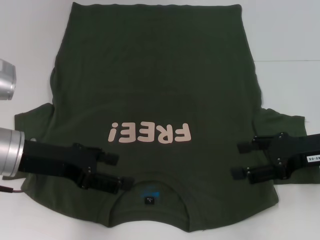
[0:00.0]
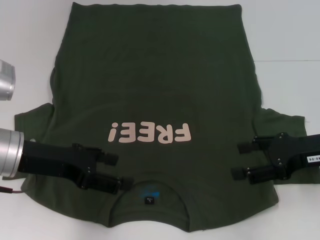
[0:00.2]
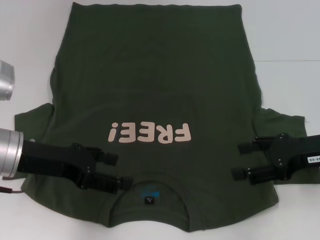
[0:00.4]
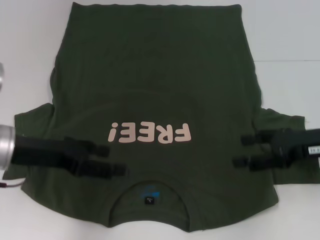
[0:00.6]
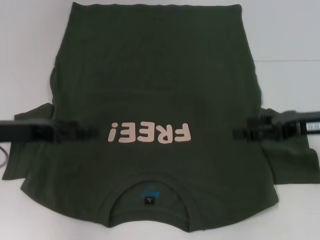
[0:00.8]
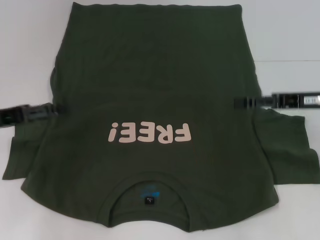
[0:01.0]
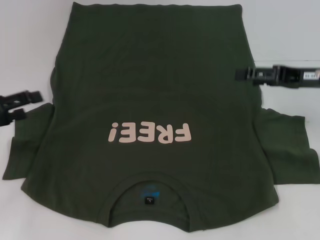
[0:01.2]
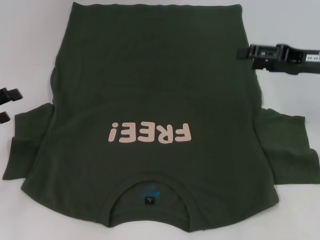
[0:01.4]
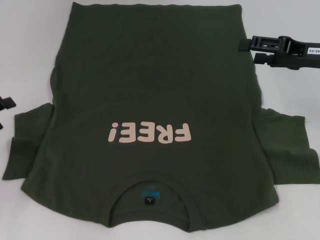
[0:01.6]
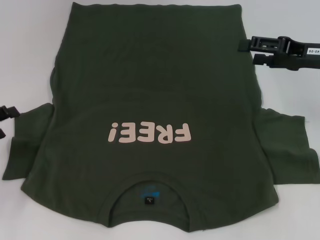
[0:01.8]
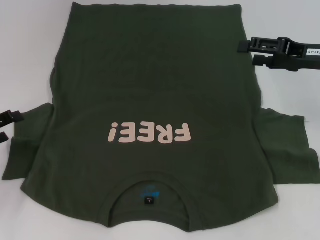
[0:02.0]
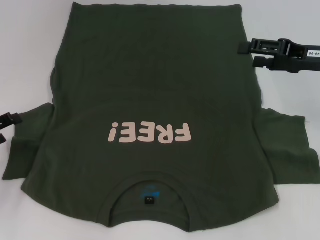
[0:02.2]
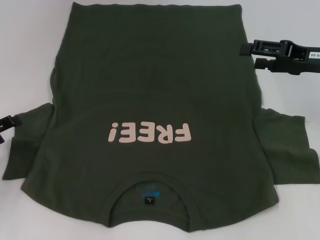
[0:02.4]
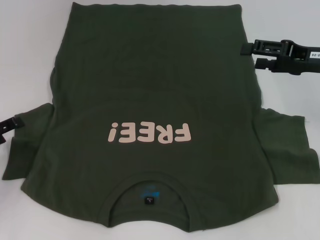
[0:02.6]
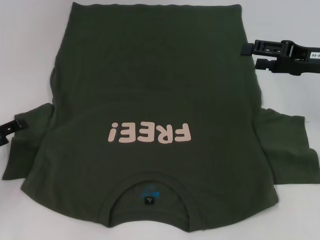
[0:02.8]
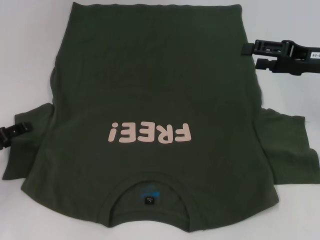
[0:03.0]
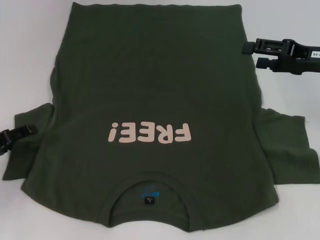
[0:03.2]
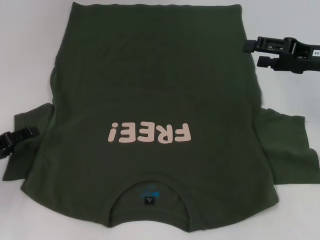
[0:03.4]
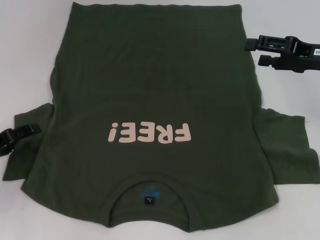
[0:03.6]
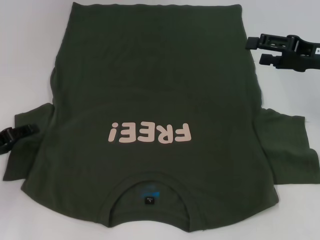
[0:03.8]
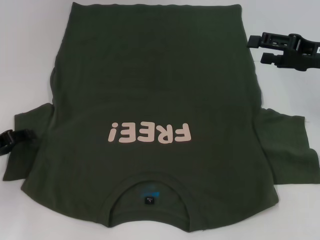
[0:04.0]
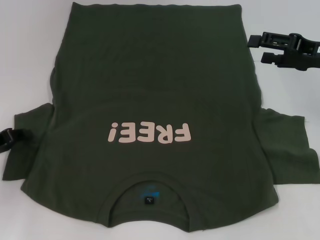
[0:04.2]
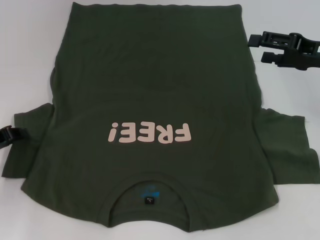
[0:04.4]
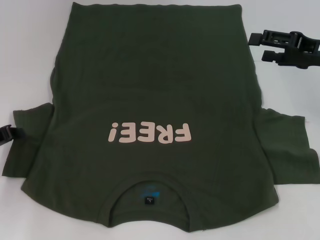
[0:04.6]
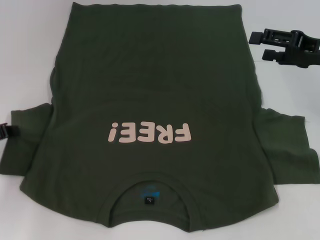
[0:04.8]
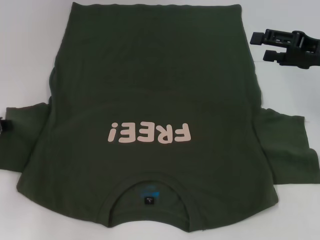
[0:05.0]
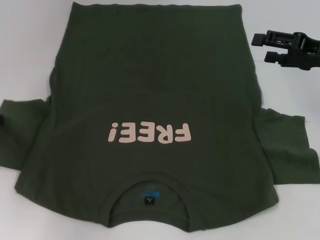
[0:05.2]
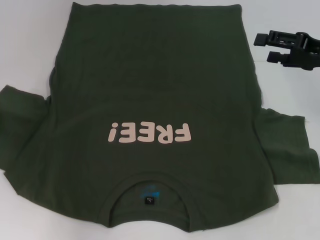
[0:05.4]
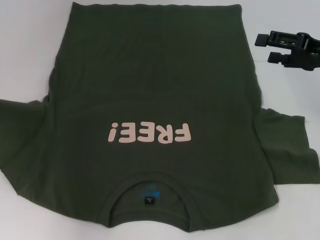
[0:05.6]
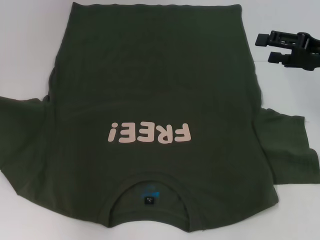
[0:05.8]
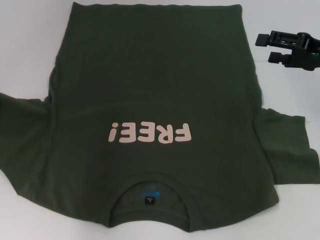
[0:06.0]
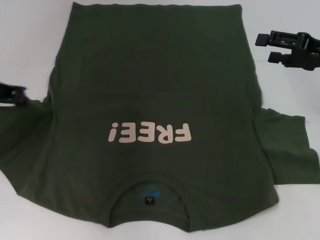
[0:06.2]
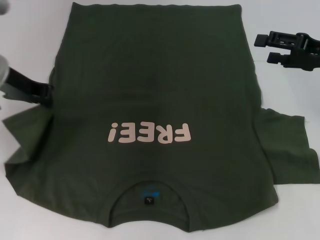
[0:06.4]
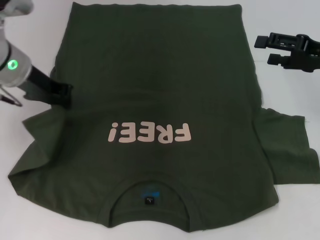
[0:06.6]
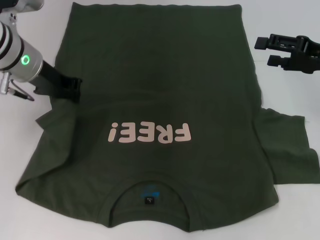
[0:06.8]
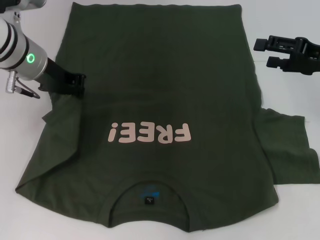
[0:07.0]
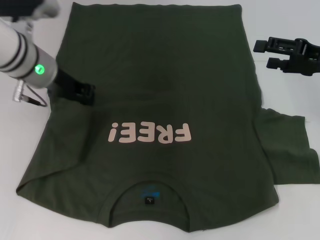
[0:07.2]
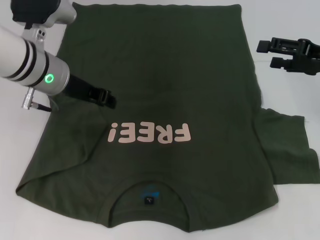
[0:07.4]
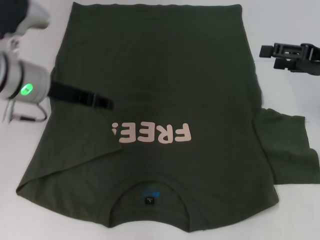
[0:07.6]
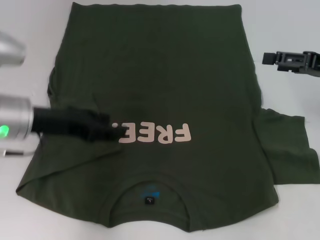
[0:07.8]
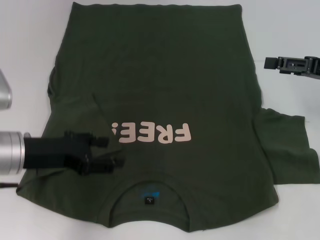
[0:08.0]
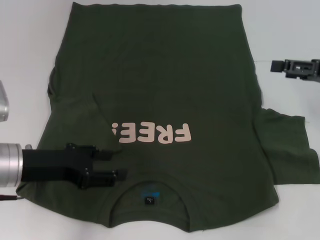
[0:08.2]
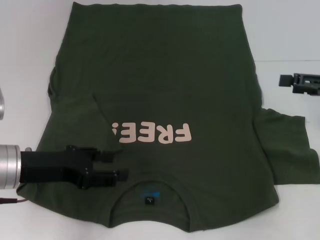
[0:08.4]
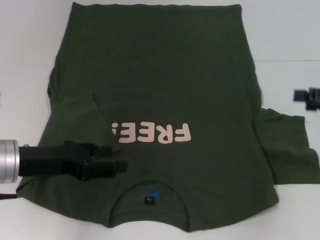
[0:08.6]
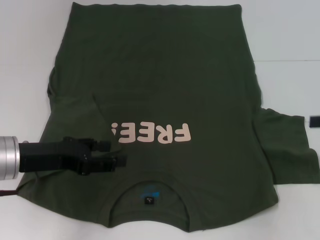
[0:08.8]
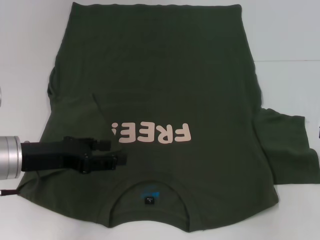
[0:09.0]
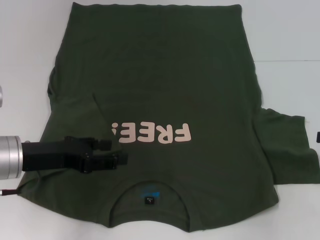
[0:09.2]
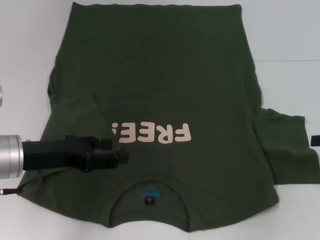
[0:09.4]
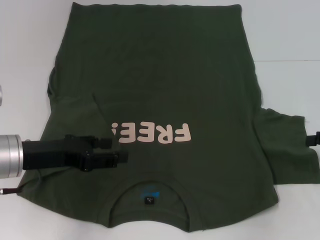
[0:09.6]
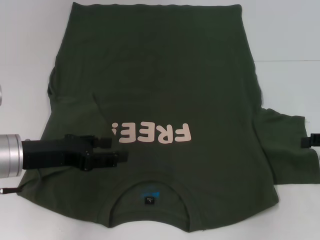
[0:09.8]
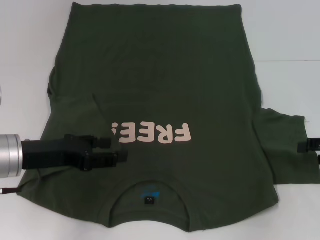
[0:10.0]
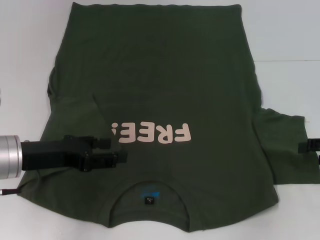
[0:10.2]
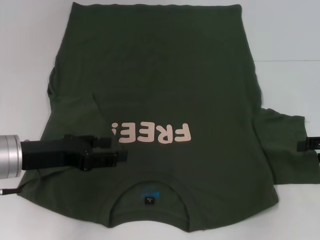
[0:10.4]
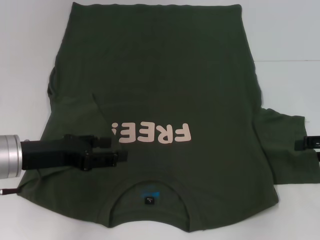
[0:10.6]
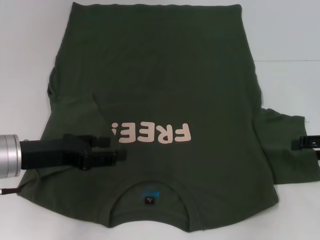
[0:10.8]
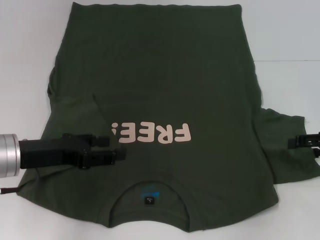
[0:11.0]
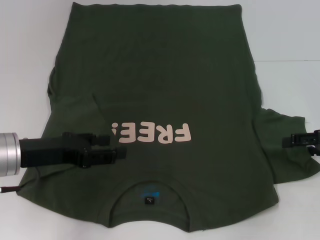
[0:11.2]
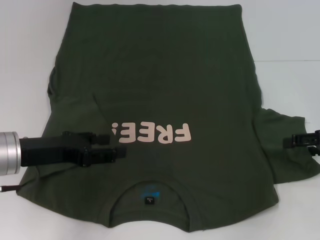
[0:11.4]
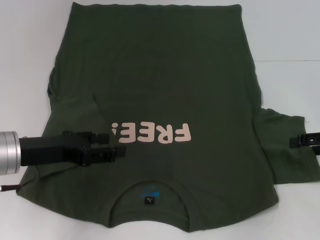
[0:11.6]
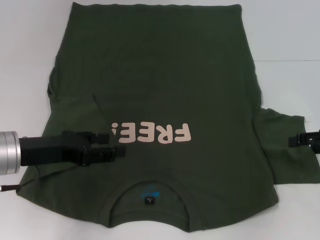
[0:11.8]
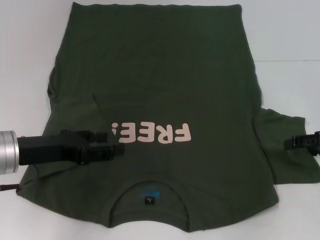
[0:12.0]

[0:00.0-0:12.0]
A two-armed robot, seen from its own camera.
Step, 0:00.0 to 0:07.4: Fold the bottom left sleeve with your left hand.
0:00.0 to 0:01.6: The left gripper travels to the left by about 15 cm, while the right gripper shifts about 10 cm forward.
0:01.6 to 0:03.0: The left gripper shifts by about 5 cm.
0:04.4 to 0:06.0: The left gripper goes some 10 cm upward and forward, and closes up.
0:06.0 to 0:07.6: The left gripper heads to the right, covering some 15 cm.
0:07.6 to 0:09.0: The right gripper shifts approximately 10 cm to the right and backward. Meanwhile the left gripper is displaced backward and downward by some 10 cm, and opens.
0:10.4 to 0:12.0: The grippers move only a little.

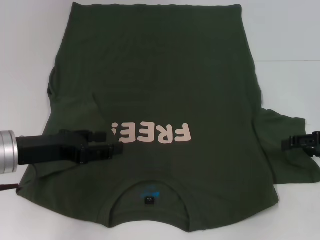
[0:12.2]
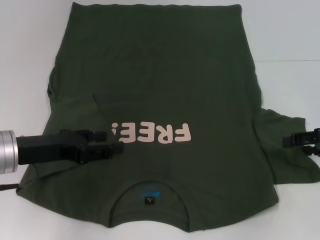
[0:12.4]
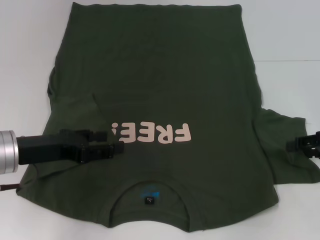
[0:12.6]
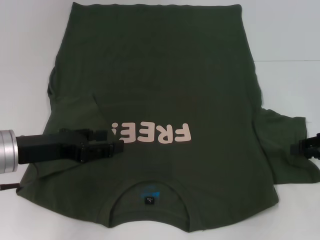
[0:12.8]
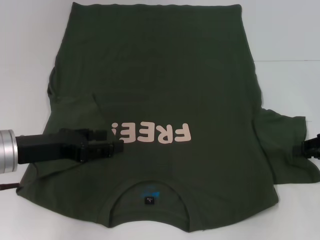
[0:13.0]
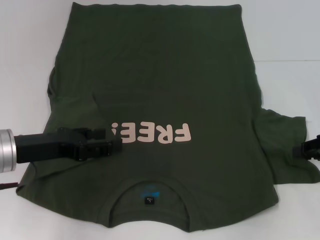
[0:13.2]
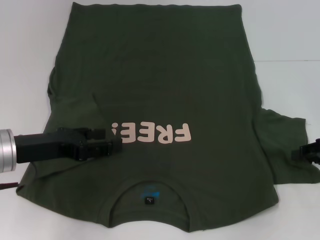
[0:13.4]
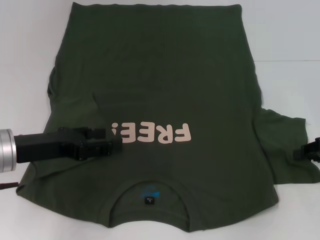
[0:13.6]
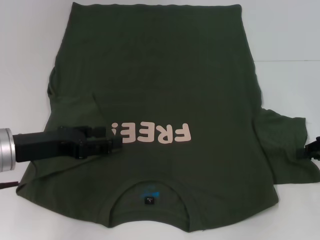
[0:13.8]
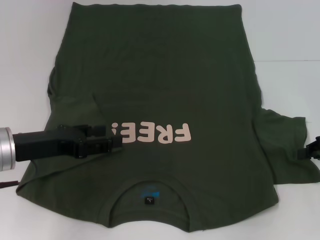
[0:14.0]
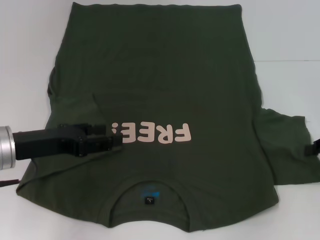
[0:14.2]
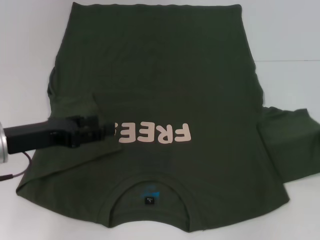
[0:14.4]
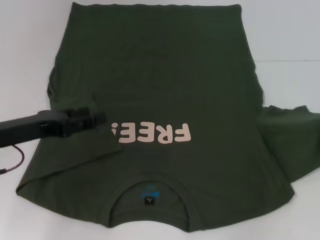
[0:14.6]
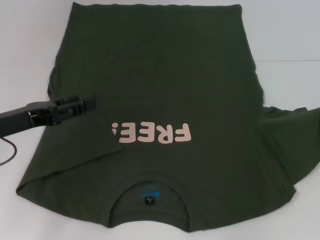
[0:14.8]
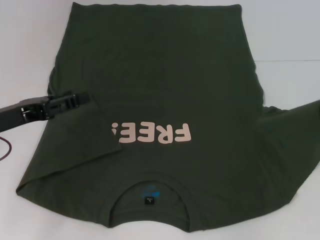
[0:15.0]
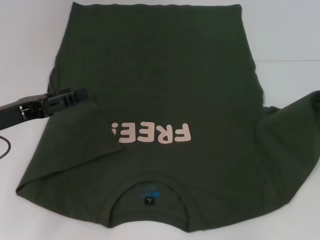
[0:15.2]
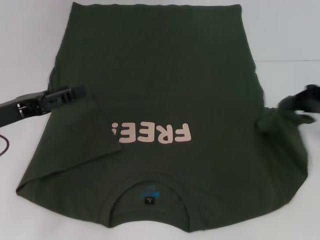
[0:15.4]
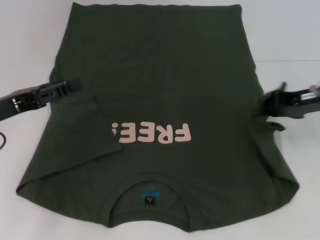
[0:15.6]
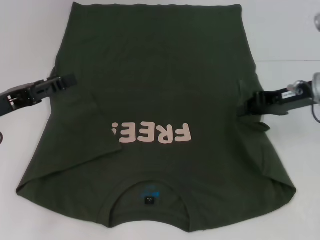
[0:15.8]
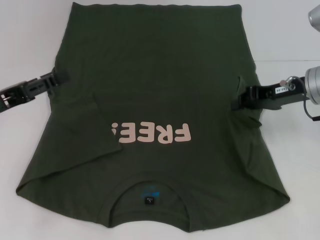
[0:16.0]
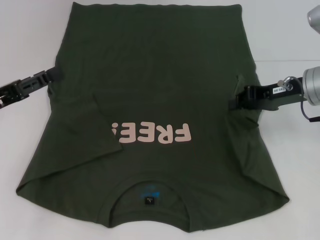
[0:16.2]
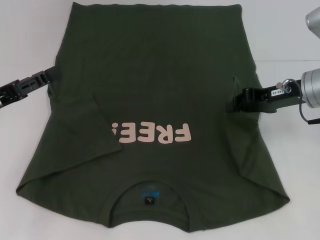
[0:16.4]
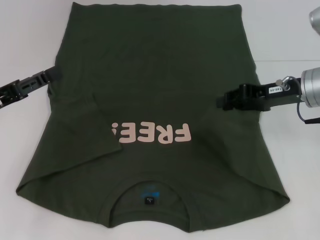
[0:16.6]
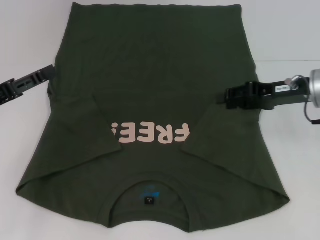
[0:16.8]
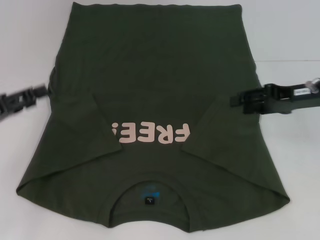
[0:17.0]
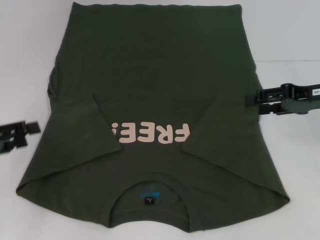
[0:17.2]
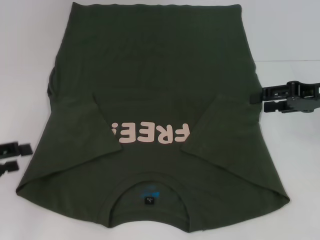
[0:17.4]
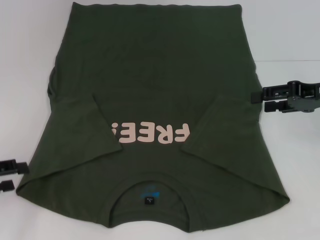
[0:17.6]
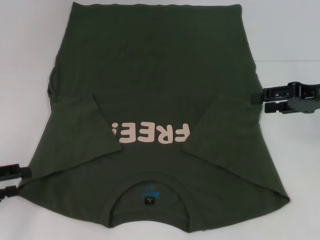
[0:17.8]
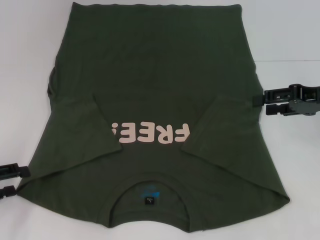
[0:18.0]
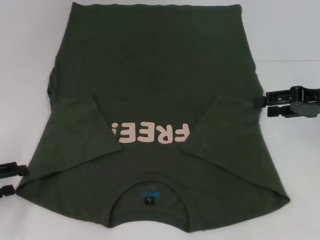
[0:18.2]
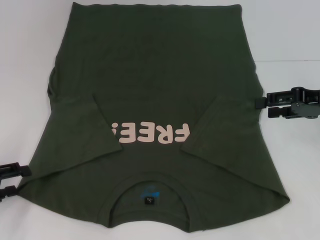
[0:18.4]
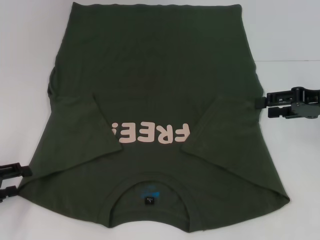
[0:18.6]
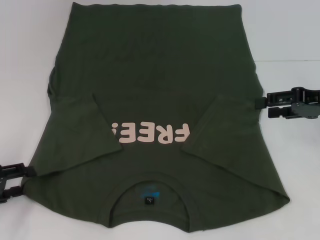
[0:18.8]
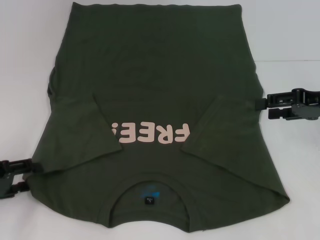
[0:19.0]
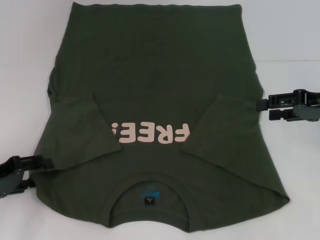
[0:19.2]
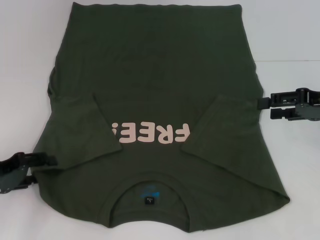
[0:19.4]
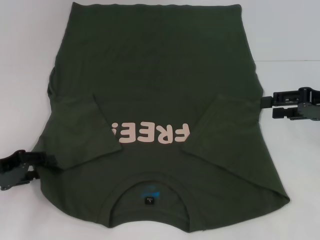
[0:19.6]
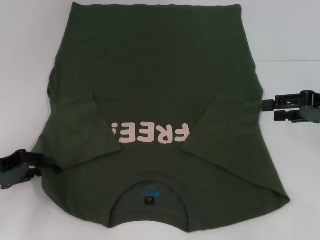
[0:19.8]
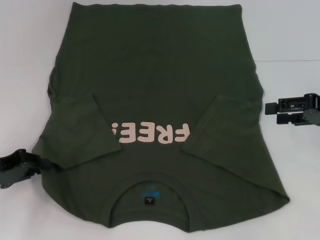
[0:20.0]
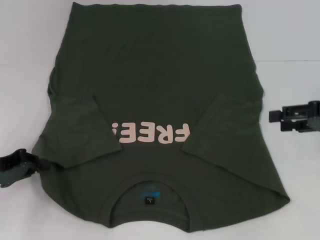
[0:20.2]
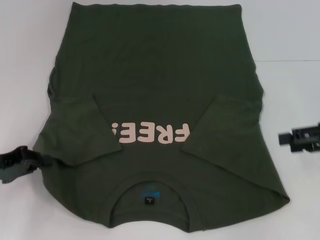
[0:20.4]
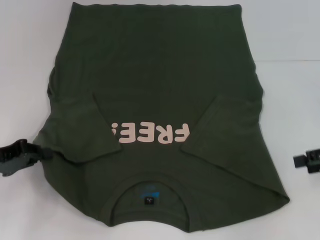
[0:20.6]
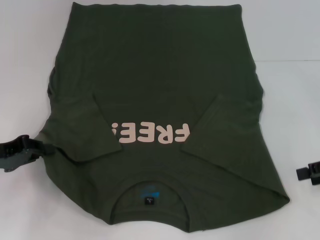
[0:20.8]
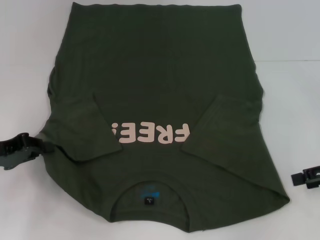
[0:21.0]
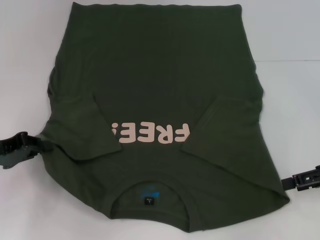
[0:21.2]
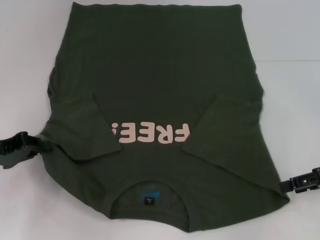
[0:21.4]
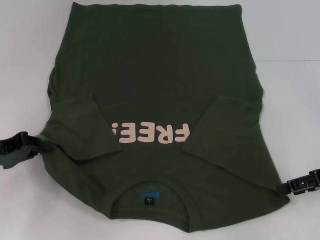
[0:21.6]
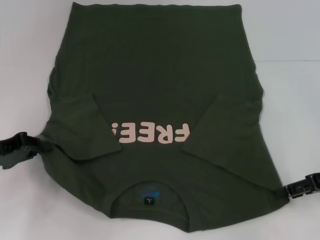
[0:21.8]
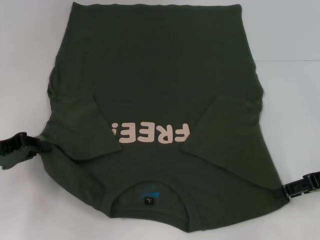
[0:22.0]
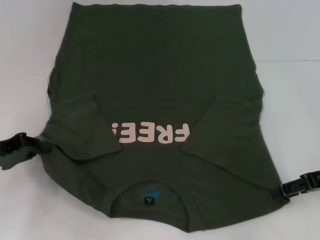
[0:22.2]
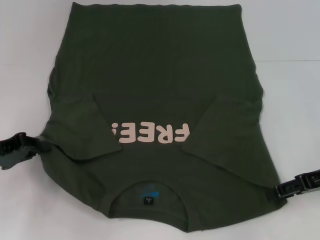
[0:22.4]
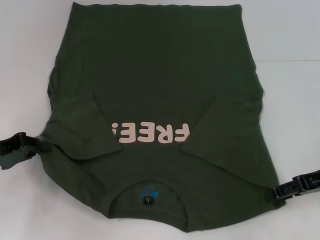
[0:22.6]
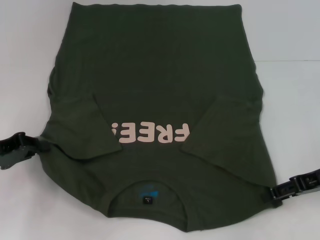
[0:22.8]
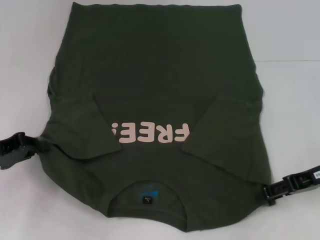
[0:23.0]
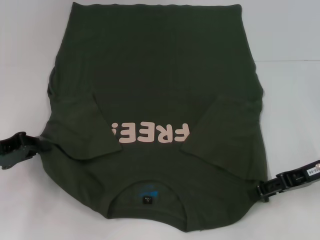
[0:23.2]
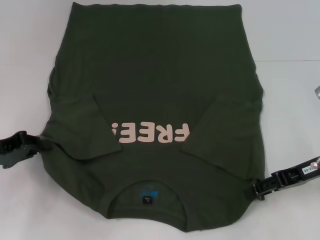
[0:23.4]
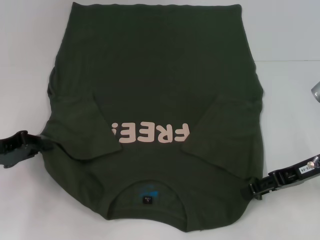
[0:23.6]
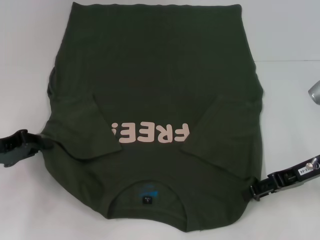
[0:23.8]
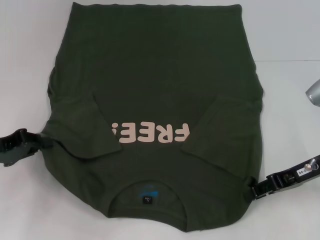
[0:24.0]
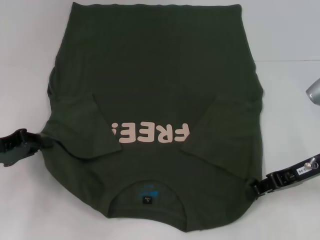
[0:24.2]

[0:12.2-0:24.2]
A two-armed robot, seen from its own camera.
Step, 0:12.2 to 0:16.6: Fold the bottom right sleeve with your right hand.
Step, 0:16.8 to 0:20.2: Grab the bottom left corner with your left hand.
0:12.2 to 0:13.8: The right gripper closes.
0:13.8 to 0:15.2: The right gripper travels upward by some 5 cm.
0:15.2 to 0:16.6: The right gripper travels to the left by about 15 cm.
0:16.6 to 0:18.2: The right gripper goes approximately 5 cm to the right, and opens up; the left gripper heads downward and to the left, covering roughly 10 cm.
0:18.2 to 0:19.8: The left gripper shifts by some 5 cm.
0:19.8 to 0:21.2: The right gripper moves some 5 cm. The left gripper closes.
0:21.2 to 0:22.6: The grippers move only a little.
0:22.6 to 0:24.2: The grippers stay close to where they were, moving slightly.
